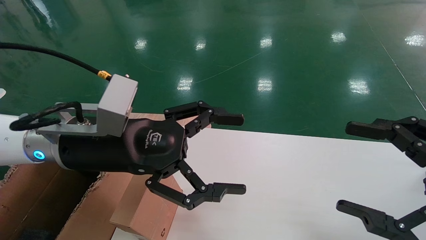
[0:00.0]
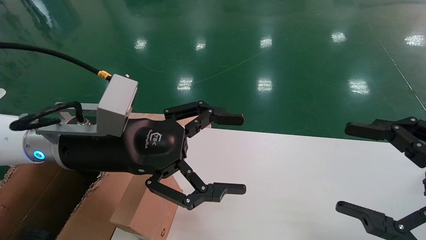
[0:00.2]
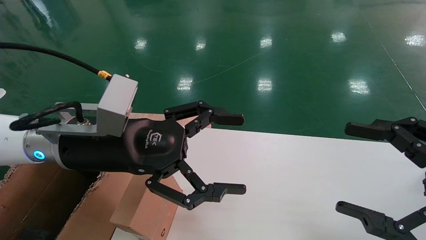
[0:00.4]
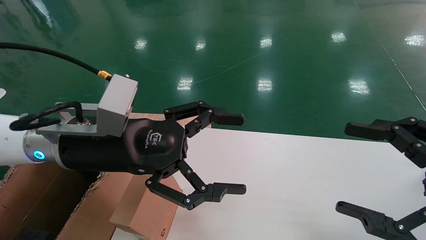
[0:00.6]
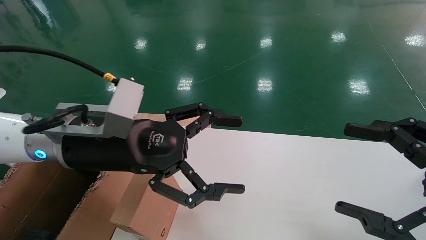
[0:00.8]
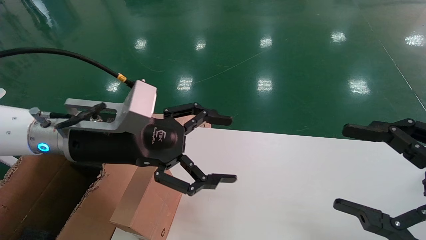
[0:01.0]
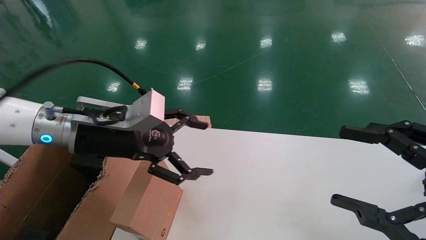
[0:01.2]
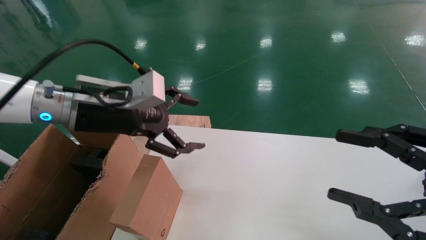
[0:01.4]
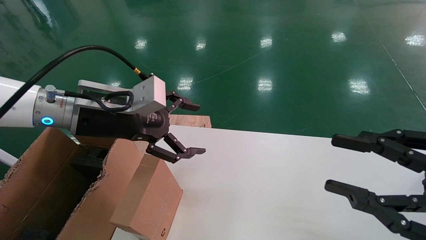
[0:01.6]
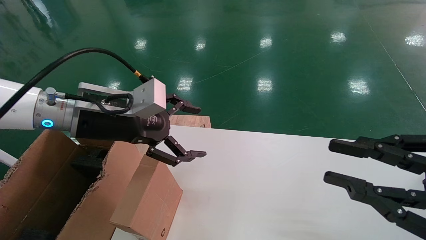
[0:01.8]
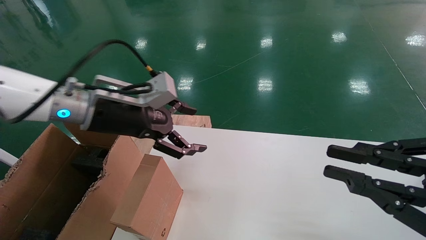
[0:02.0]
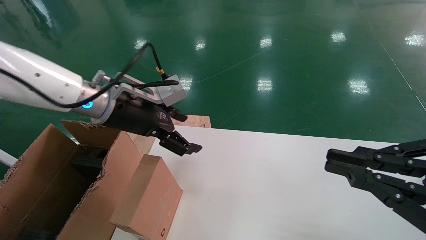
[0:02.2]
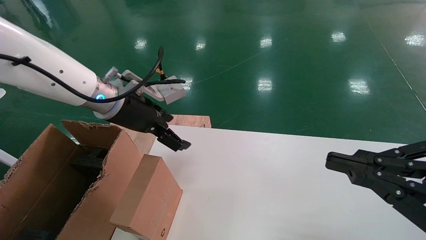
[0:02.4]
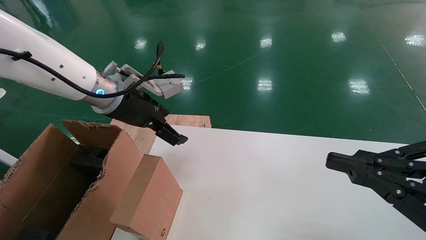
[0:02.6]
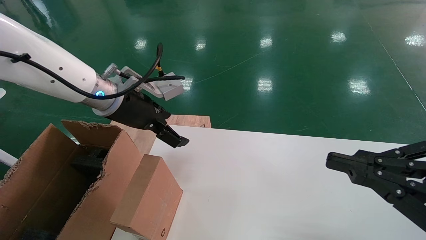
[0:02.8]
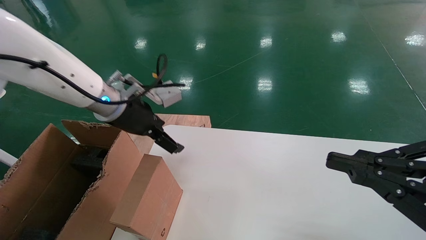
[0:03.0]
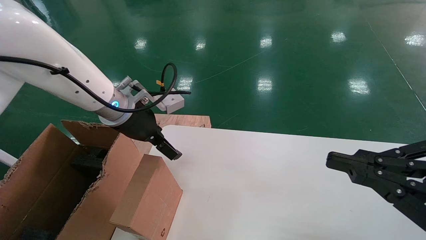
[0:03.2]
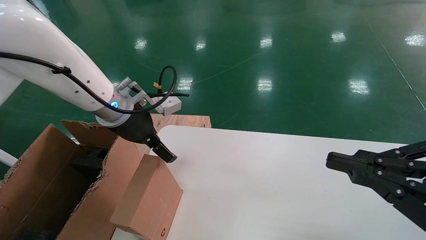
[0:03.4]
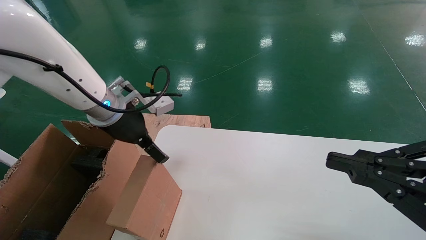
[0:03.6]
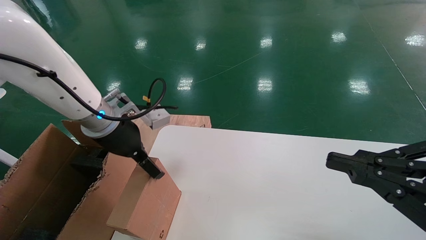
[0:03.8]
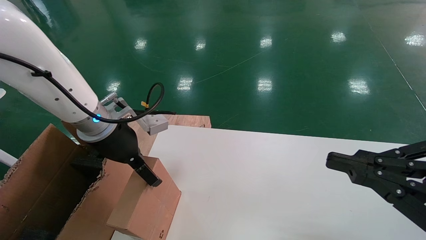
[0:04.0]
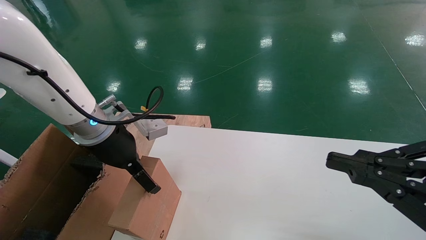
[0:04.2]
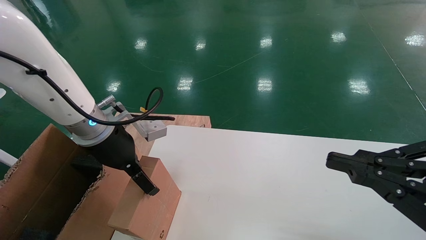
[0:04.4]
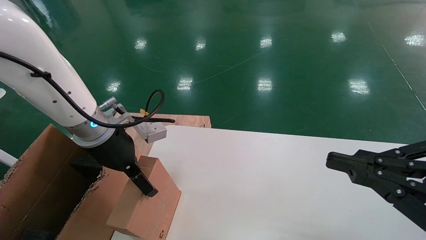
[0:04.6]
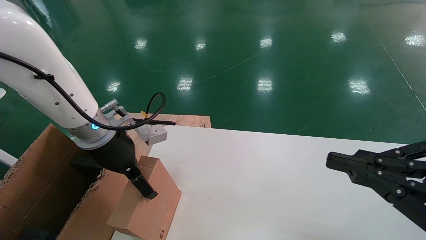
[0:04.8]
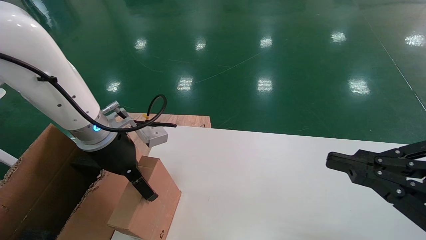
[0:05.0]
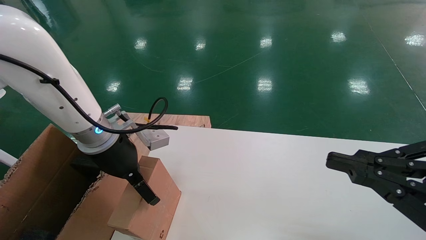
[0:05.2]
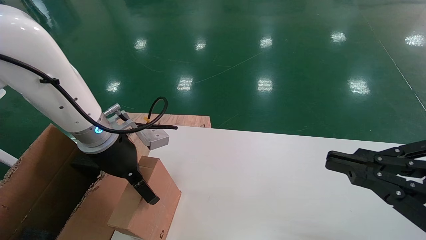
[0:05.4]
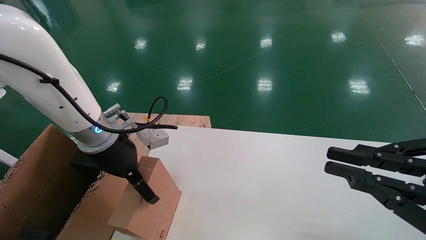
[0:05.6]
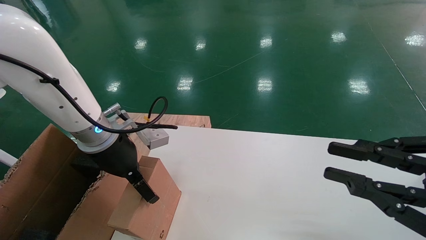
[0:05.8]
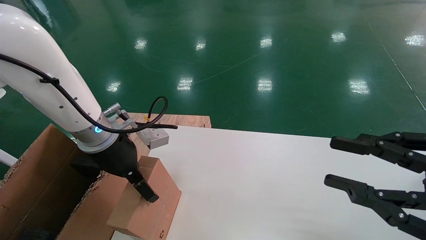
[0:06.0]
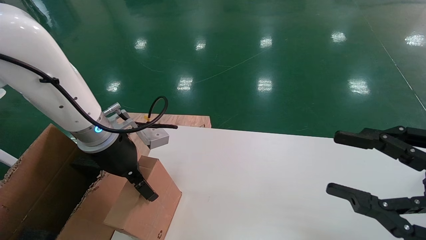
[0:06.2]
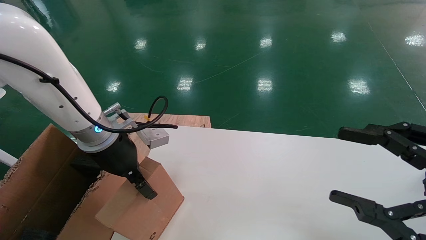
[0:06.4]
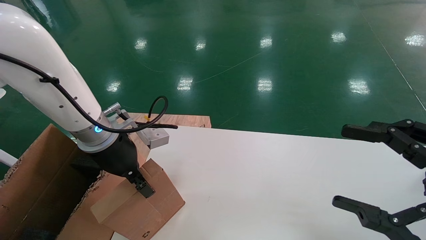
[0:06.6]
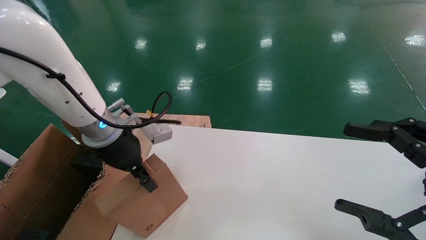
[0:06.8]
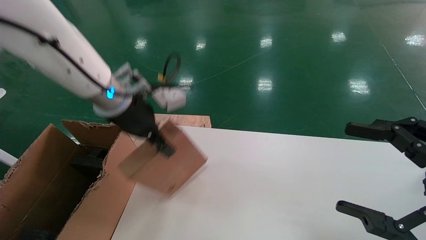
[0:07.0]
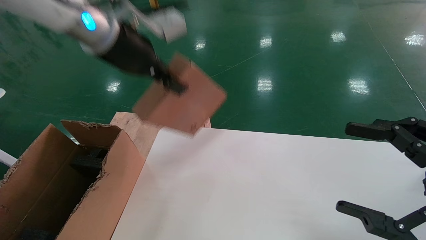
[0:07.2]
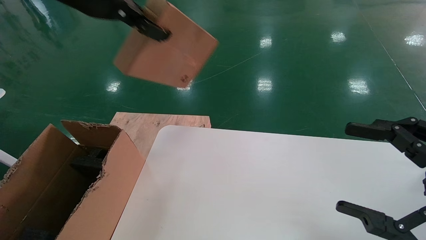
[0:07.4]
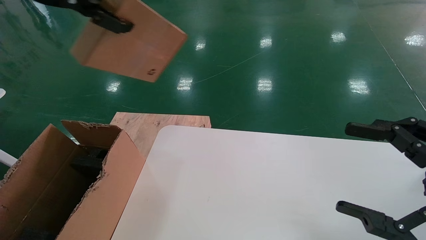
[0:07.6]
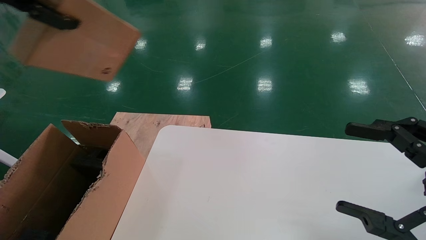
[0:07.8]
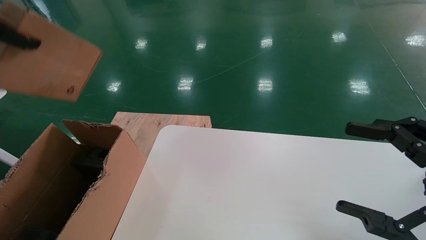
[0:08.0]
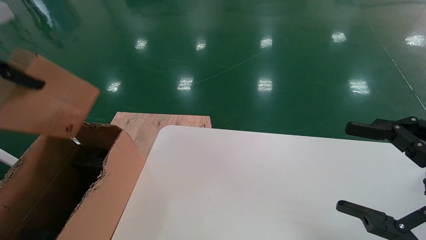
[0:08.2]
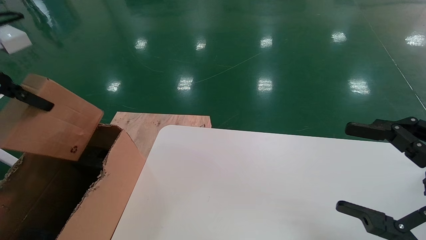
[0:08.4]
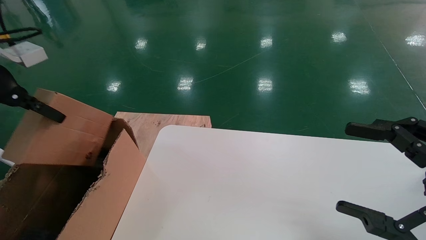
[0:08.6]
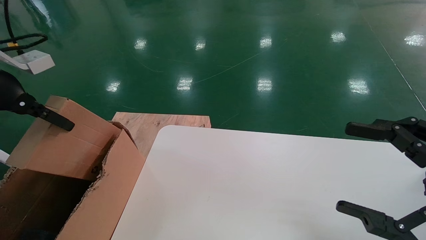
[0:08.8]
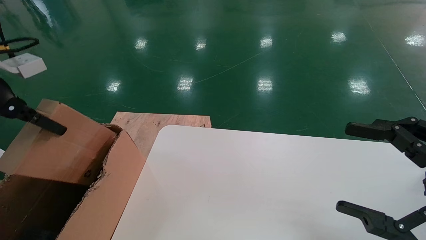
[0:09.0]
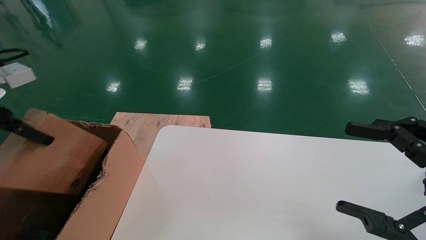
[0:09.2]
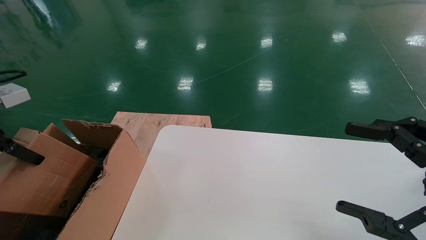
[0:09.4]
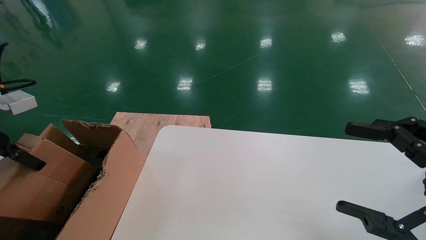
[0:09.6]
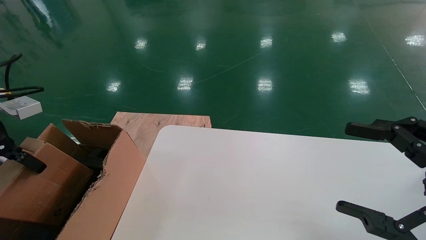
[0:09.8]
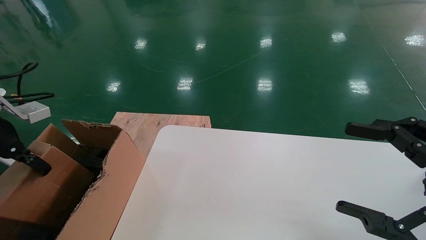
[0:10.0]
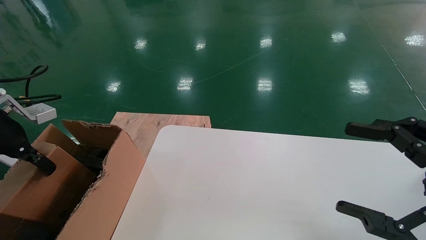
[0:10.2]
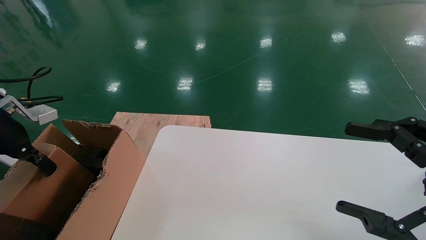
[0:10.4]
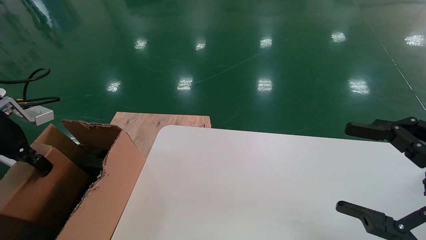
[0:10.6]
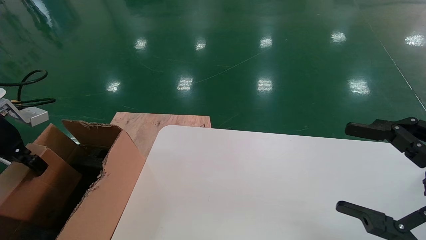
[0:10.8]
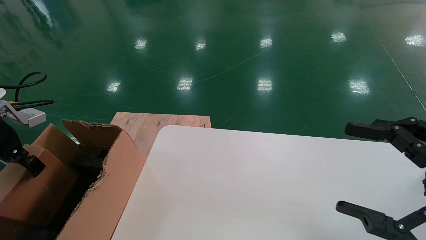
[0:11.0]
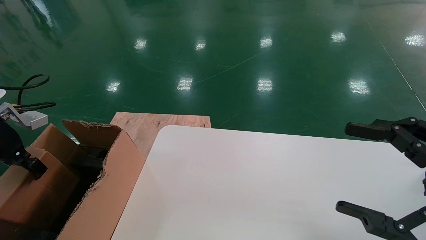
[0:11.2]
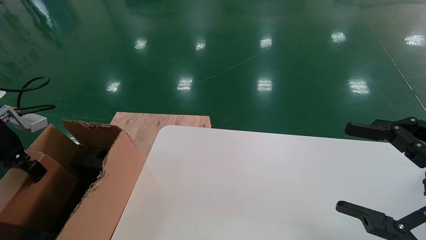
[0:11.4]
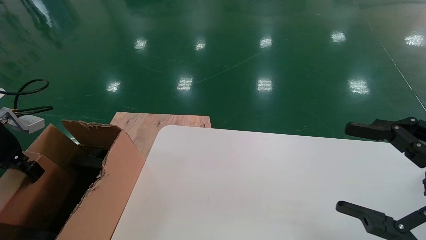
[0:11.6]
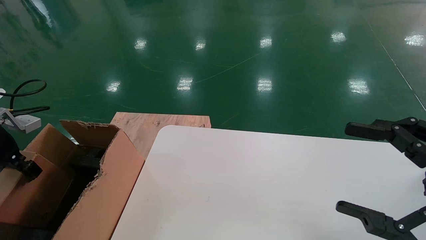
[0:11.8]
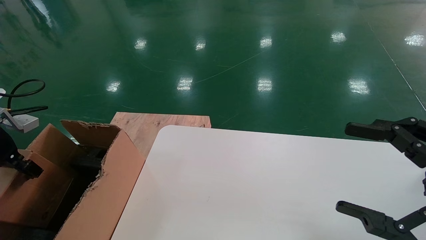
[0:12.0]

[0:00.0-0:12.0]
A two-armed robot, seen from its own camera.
Task of the whole recording: place the small box on the table into the large box on the left.
Step, 0:01.2 to 0:06.6: Pick up the mouse and the power cord paper box.
0:00.0 to 0:01.6: The right gripper closes its fingers, while the left gripper moves about 5 cm.
0:01.6 to 0:03.0: The right gripper closes its fingers, while the left gripper heads forward, covering some 5 cm.
0:03.0 to 0:04.4: The left gripper moves about 5 cm.
0:04.4 to 0:06.0: The grippers move only a little.
0:06.0 to 0:07.6: The right gripper opens its fingers, while the left gripper travels upward by about 25 cm, and closes its fingers.
0:07.6 to 0:09.0: The left gripper moves downward and to the left, about 20 cm.
0:09.0 to 0:10.4: The left gripper heads downward, covering some 10 cm.
0:10.4 to 0:12.0: The left gripper travels to the left by roughly 5 cm.

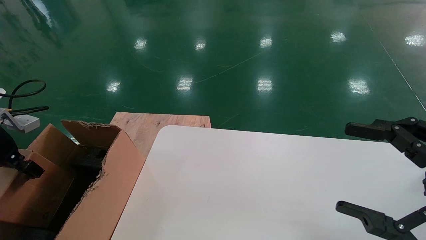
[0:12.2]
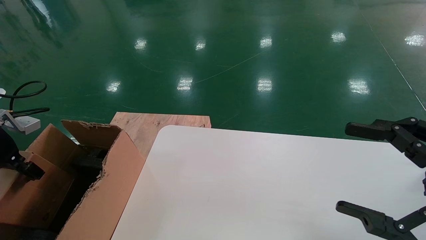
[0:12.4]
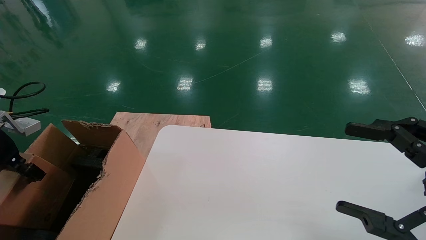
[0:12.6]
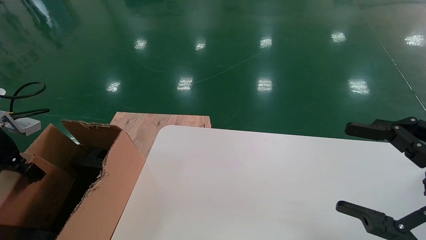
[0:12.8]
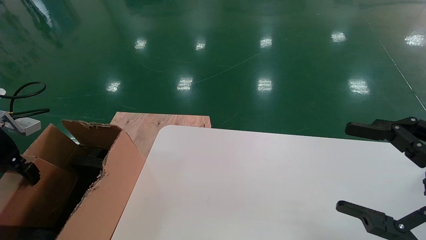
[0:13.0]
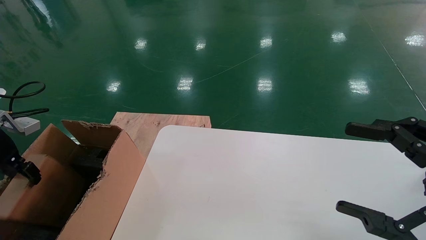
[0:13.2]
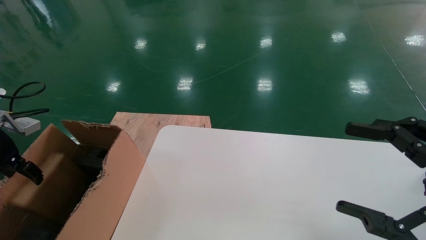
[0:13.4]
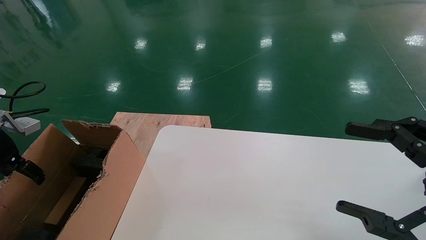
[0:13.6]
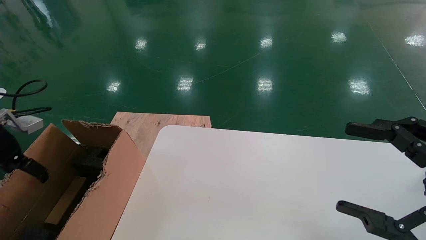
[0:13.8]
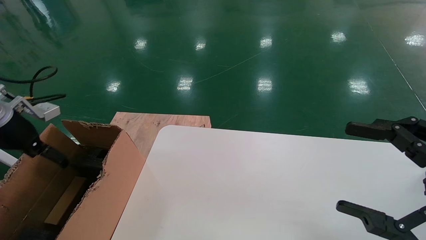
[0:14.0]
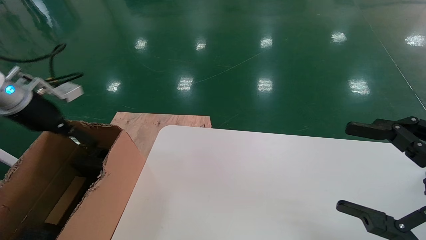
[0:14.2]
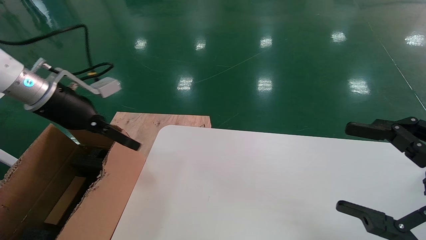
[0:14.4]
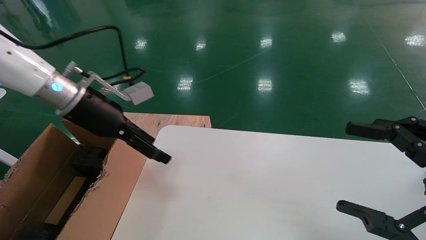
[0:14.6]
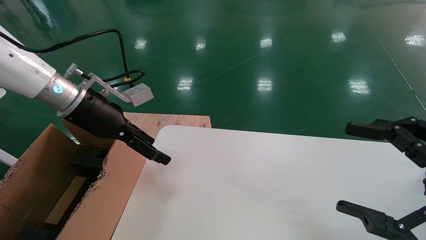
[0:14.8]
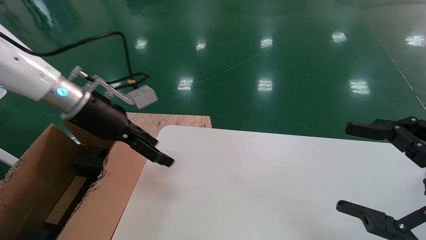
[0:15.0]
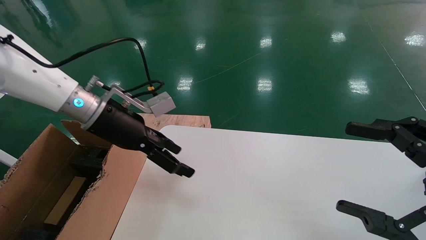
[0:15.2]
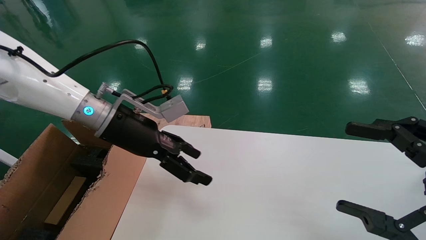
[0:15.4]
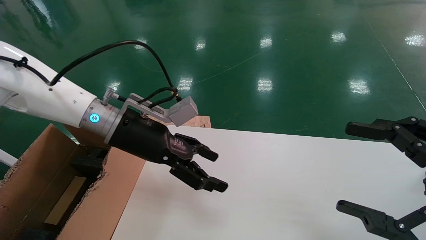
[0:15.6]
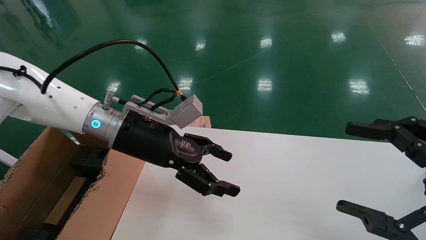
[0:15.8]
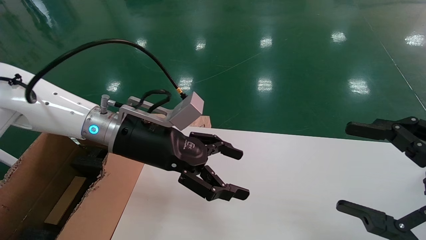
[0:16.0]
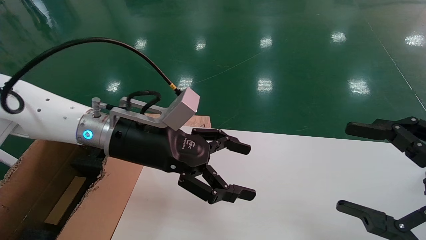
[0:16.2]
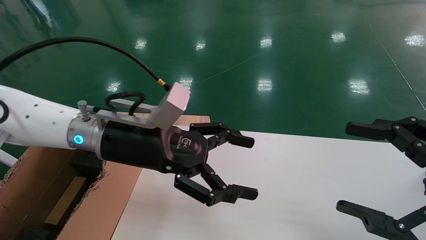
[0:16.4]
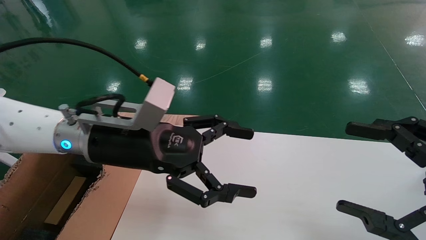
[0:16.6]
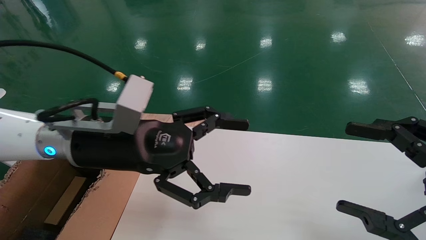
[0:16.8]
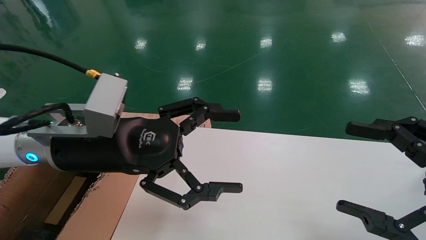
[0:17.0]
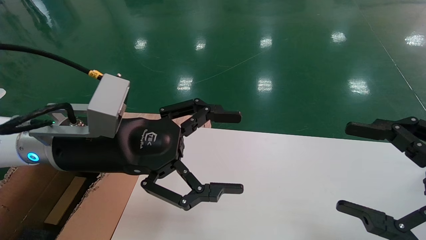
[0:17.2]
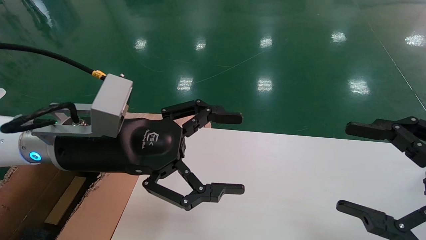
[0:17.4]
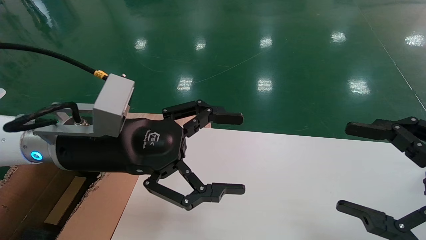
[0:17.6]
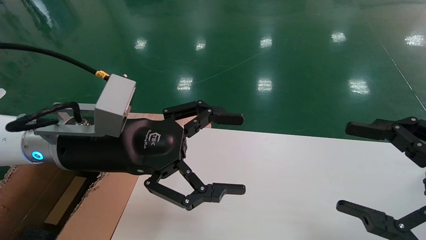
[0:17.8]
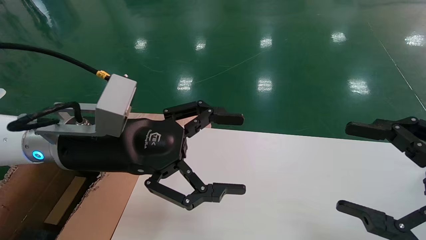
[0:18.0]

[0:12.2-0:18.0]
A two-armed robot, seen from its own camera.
Task of the whole recording: place the small box on the table into the large box on the left.
0:12.2 to 0:13.6: The left gripper opens.
0:13.6 to 0:15.0: The left gripper goes approximately 25 cm to the right.
0:15.0 to 0:16.6: The left gripper goes some 10 cm to the right and backward.
0:16.6 to 0:18.0: There are only small adjustments of the grippers.
